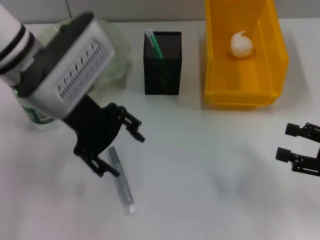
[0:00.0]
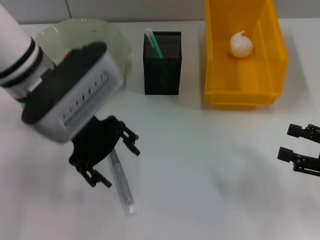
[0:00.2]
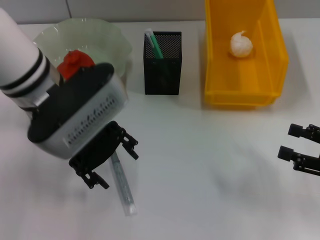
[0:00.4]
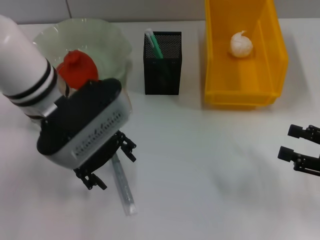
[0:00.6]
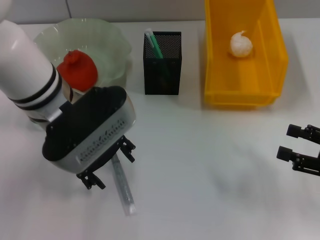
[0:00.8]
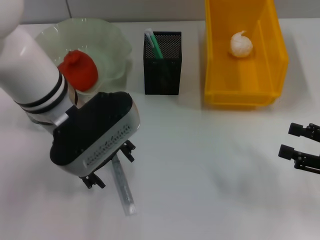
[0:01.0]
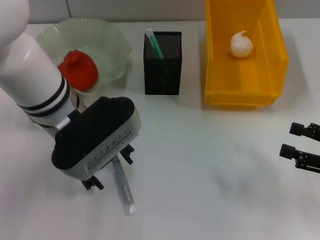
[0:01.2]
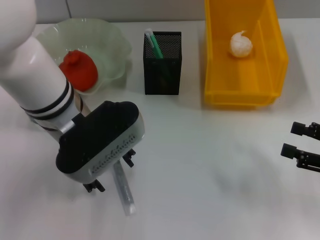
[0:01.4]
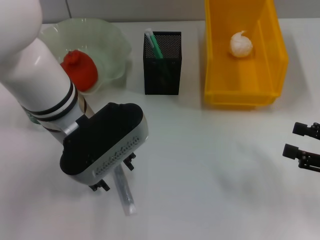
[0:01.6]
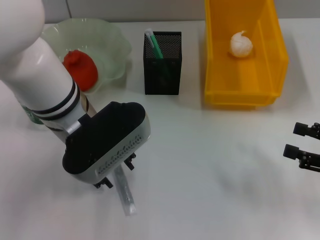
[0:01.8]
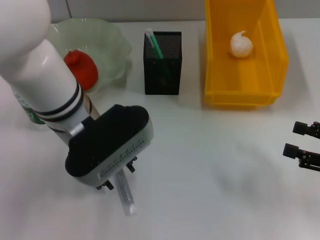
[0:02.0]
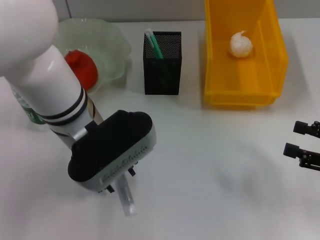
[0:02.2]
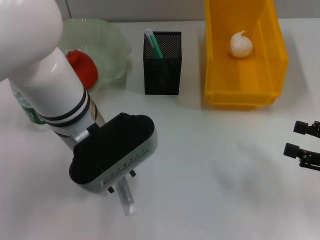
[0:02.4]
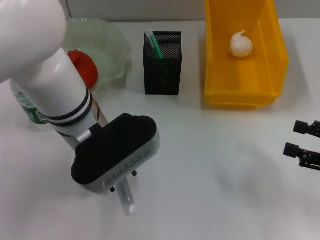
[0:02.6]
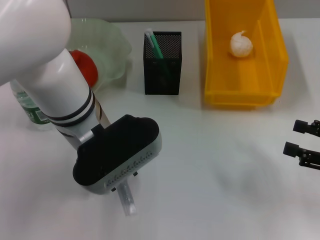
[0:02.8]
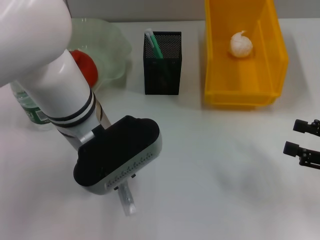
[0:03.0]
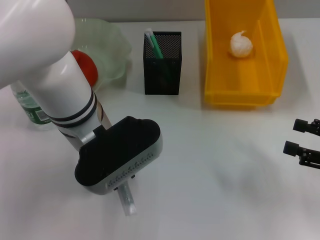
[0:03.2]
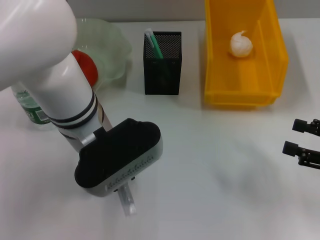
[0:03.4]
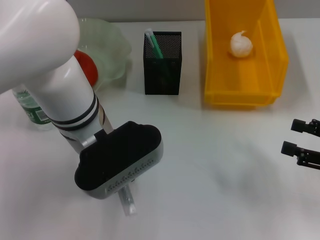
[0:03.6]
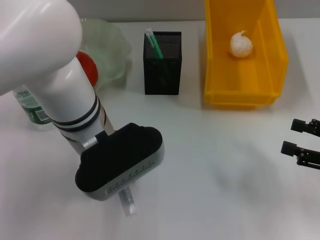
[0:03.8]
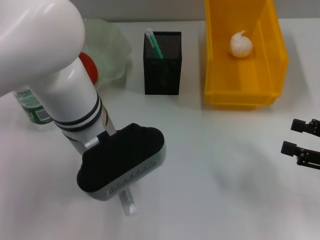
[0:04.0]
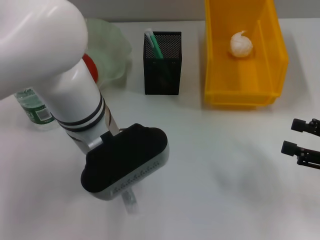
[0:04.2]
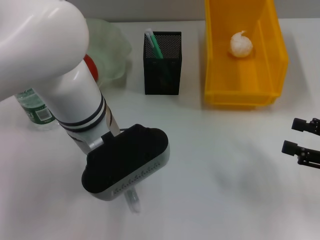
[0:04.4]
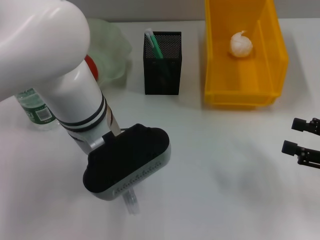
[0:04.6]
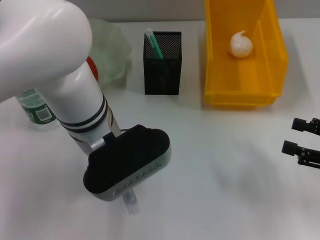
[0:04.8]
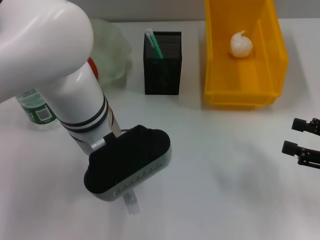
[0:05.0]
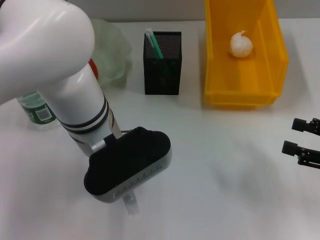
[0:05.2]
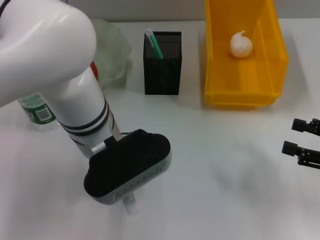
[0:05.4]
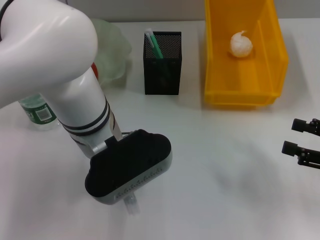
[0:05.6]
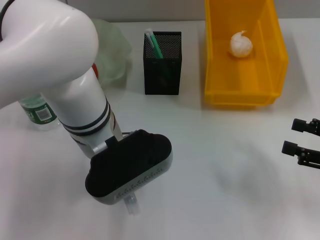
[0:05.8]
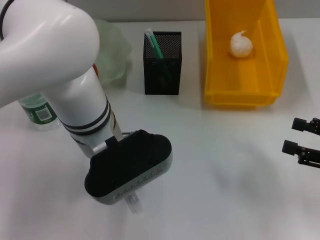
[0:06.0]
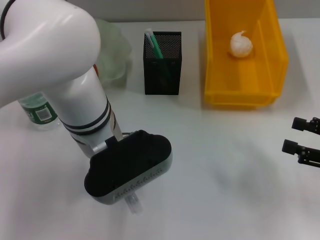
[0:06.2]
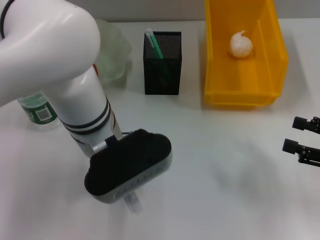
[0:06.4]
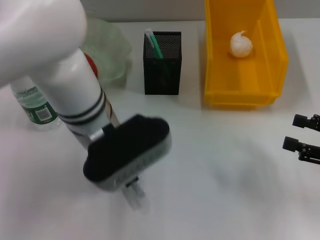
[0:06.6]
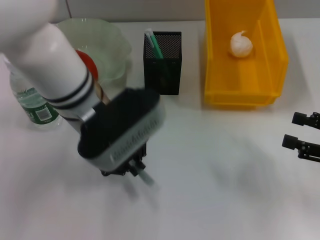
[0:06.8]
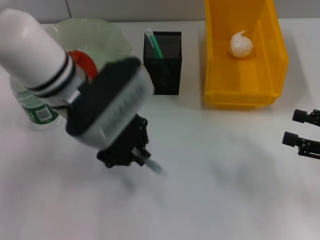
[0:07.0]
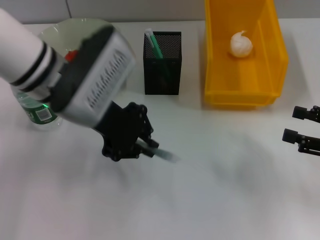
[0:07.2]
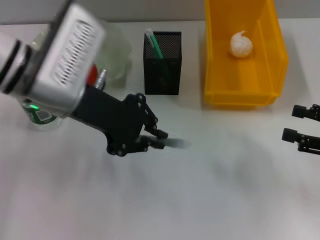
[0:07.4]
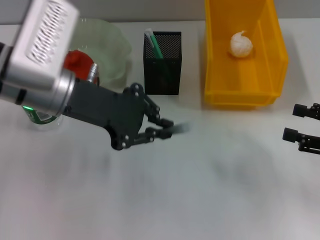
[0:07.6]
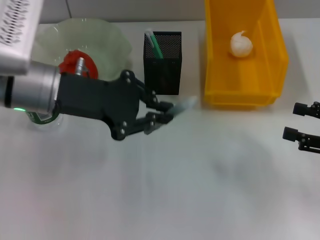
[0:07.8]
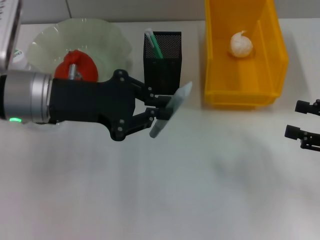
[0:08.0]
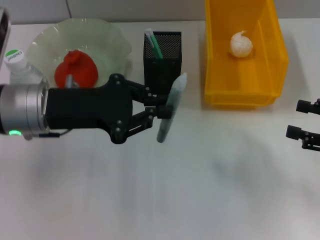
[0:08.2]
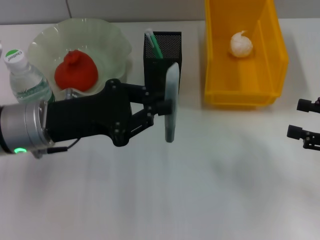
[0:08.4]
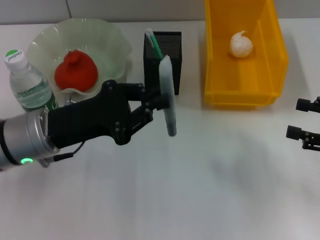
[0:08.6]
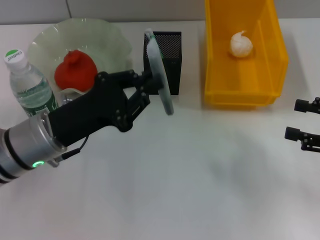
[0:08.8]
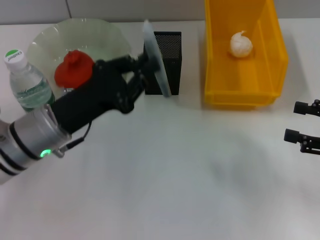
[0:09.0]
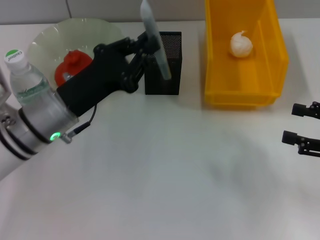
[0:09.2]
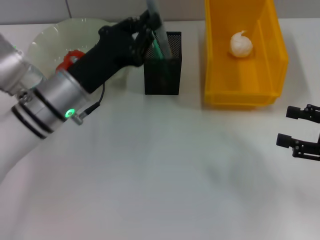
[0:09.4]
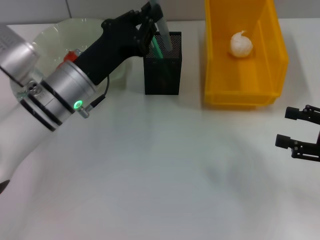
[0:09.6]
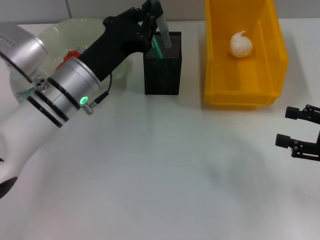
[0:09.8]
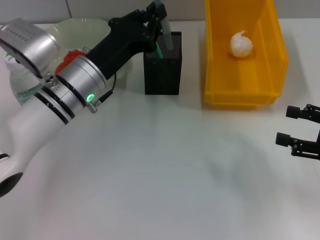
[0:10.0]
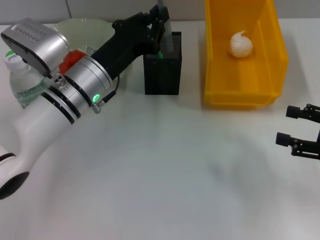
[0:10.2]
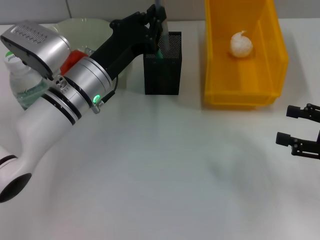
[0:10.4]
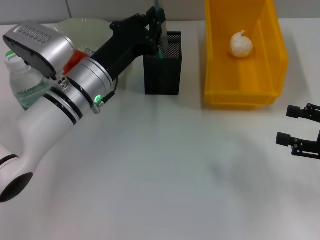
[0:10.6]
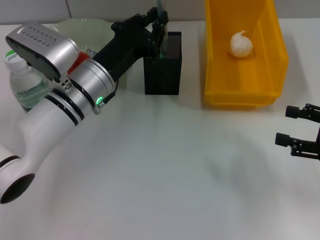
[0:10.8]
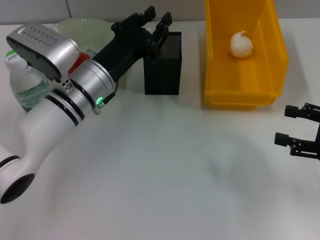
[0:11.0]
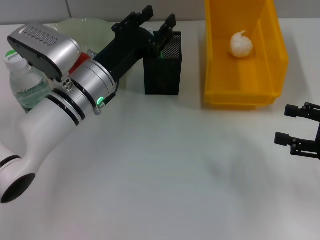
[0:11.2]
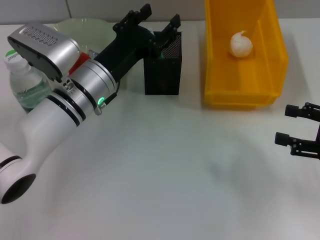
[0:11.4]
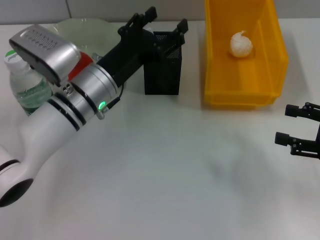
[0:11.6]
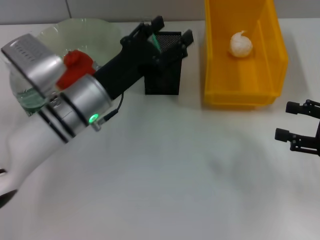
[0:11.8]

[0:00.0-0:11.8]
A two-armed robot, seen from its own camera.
Step, 0:00.0 to 0:06.0: Grab the gray glue with the left hand.
Step, 0:06.2 to 0:11.4: Place the gray glue into the pen holder with the left hand.
0:00.0 to 0:01.4: The left gripper ends up approximately 5 cm from where it was.
0:01.4 to 0:03.0: The left gripper closes its fingers.
0:03.0 to 0:04.4: Neither gripper changes place.
0:04.4 to 0:06.0: The two grippers keep their place.
0:06.0 to 0:07.4: The left gripper shifts approximately 5 cm to the left.
0:07.4 to 0:08.8: The left gripper is displaced downward and backward by roughly 10 cm.
0:08.8 to 0:10.4: The left gripper goes roughly 10 cm forward and to the right.
0:10.4 to 0:11.8: The left gripper opens up.

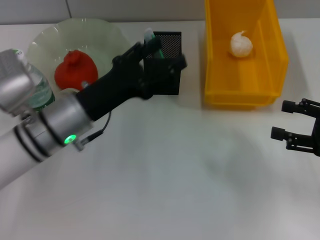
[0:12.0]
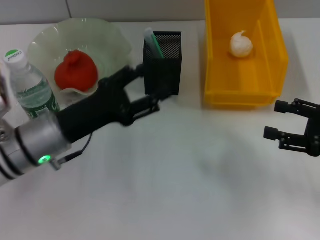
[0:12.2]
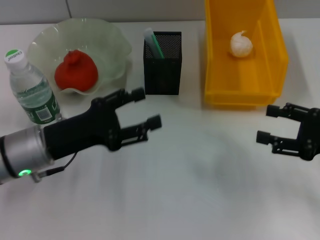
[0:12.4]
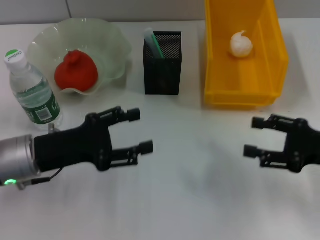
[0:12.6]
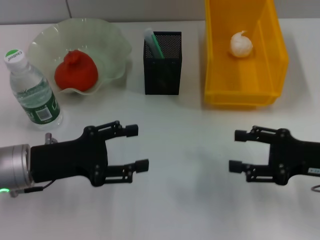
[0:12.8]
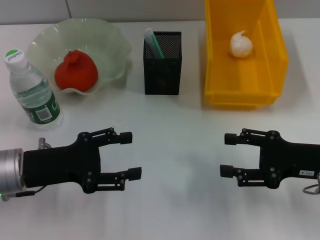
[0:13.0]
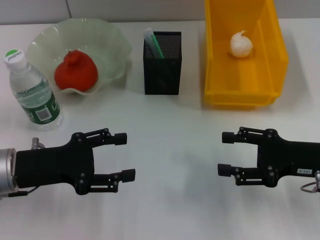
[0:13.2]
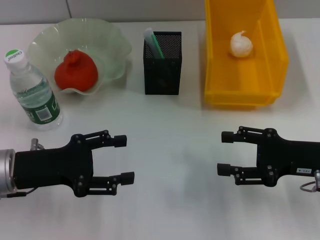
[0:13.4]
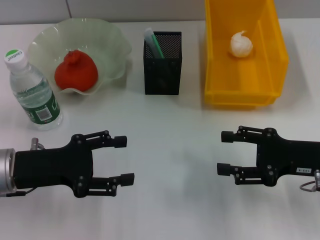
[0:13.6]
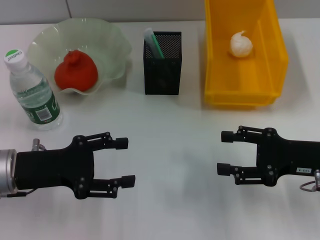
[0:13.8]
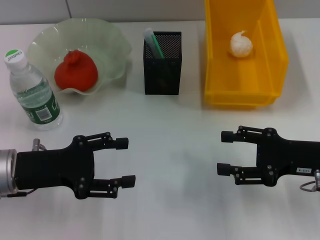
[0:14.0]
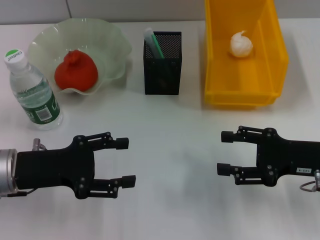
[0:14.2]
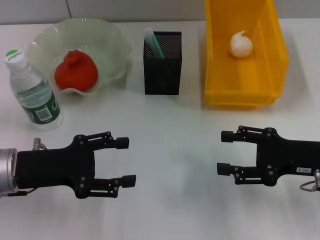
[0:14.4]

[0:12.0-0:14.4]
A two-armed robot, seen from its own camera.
0:12.0 to 0:13.2: The left gripper heads to the left and backward, covering approximately 15 cm; the right gripper heads to the left, covering roughly 5 cm.
0:13.2 to 0:14.4: Both grippers stay about where they are.

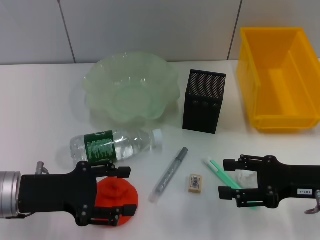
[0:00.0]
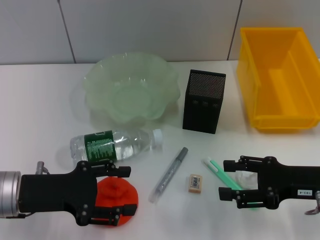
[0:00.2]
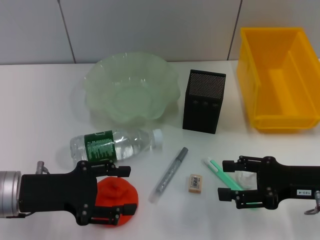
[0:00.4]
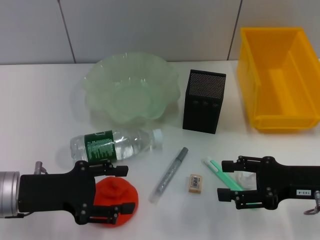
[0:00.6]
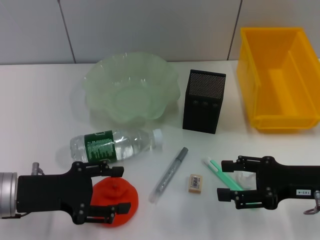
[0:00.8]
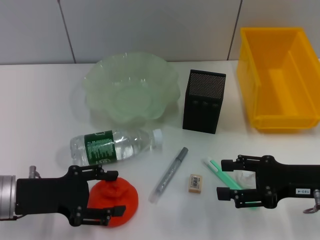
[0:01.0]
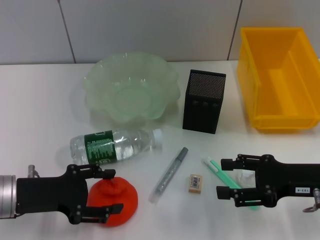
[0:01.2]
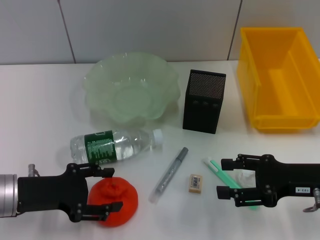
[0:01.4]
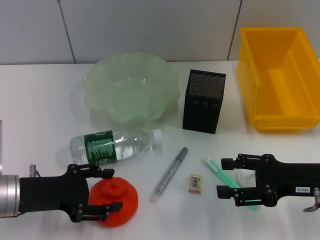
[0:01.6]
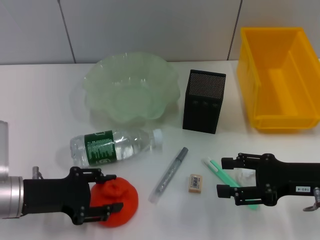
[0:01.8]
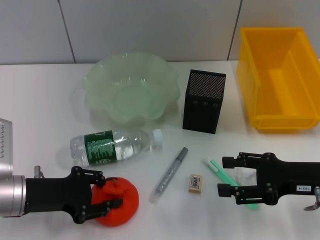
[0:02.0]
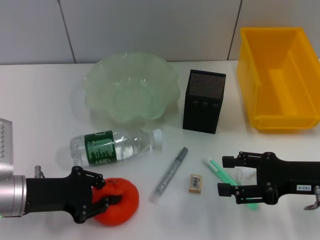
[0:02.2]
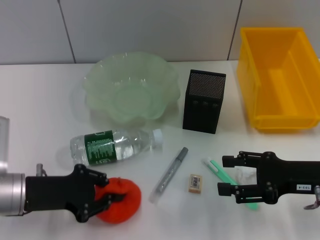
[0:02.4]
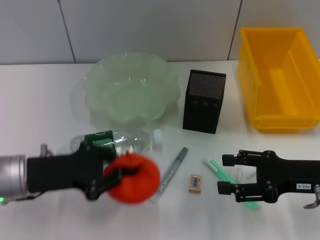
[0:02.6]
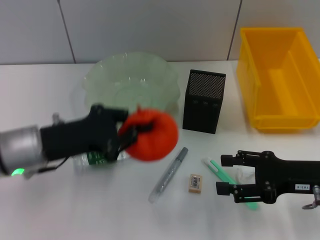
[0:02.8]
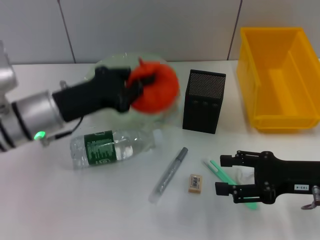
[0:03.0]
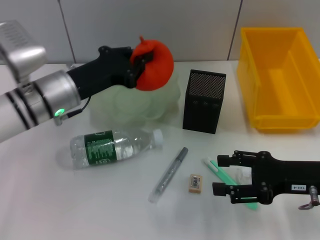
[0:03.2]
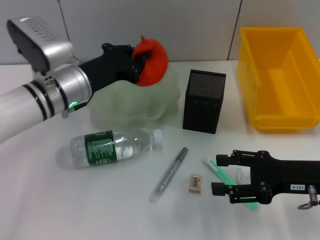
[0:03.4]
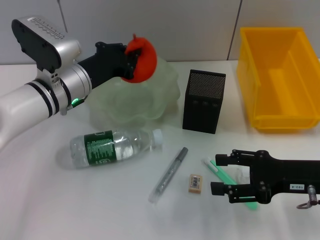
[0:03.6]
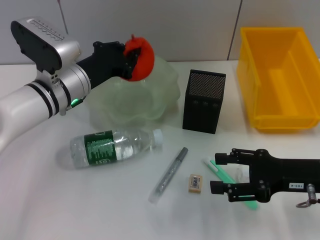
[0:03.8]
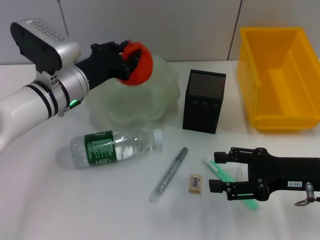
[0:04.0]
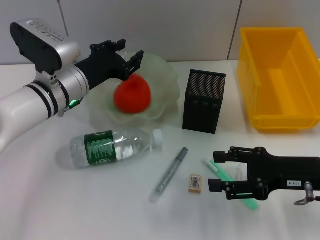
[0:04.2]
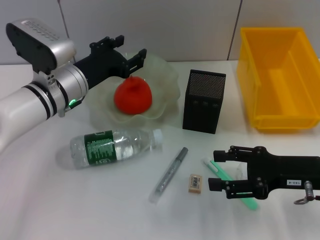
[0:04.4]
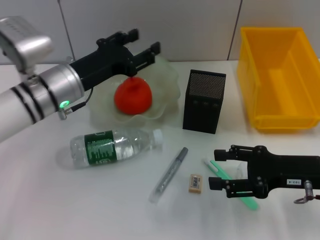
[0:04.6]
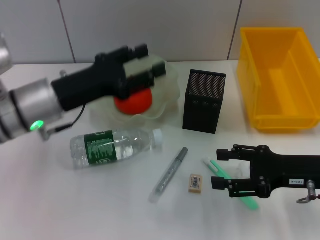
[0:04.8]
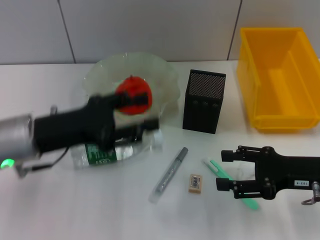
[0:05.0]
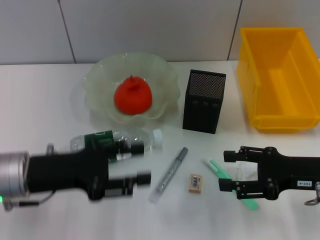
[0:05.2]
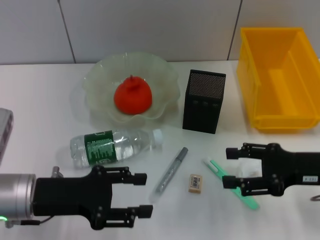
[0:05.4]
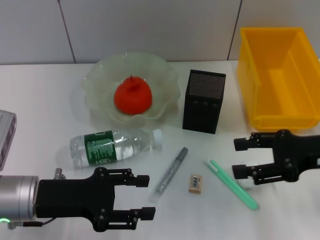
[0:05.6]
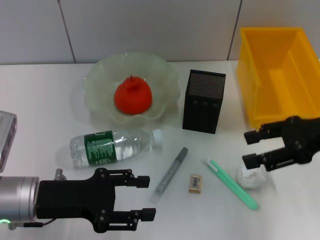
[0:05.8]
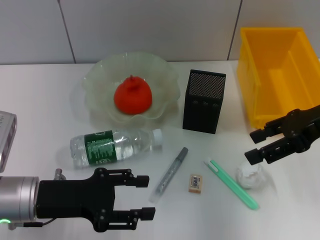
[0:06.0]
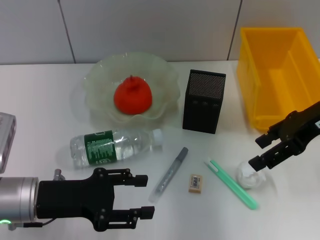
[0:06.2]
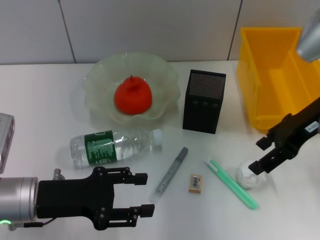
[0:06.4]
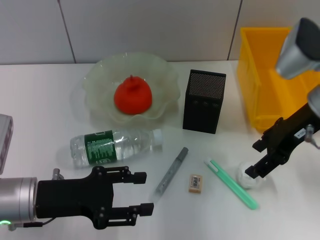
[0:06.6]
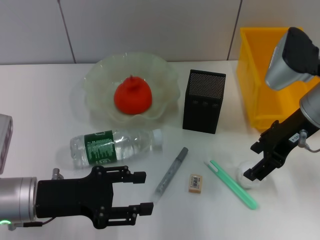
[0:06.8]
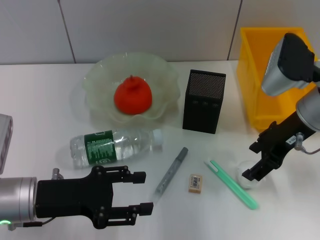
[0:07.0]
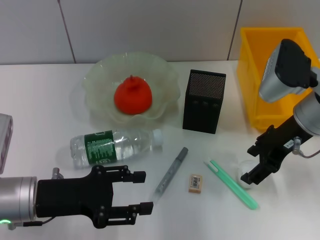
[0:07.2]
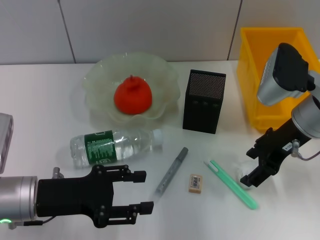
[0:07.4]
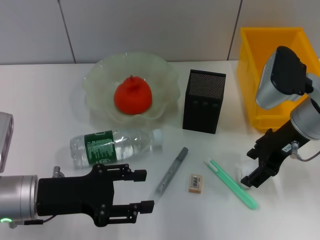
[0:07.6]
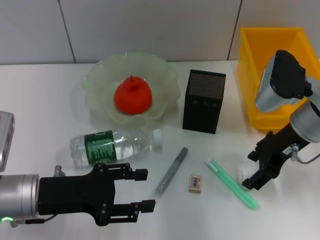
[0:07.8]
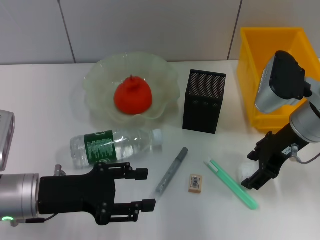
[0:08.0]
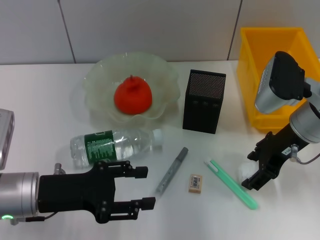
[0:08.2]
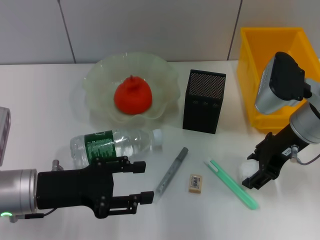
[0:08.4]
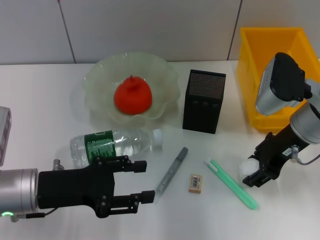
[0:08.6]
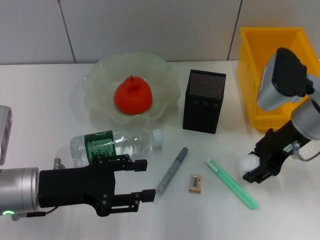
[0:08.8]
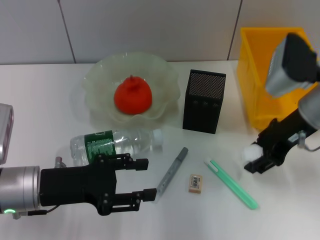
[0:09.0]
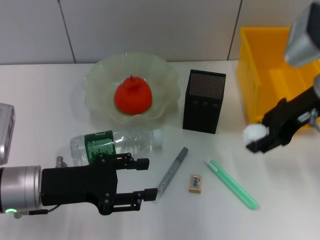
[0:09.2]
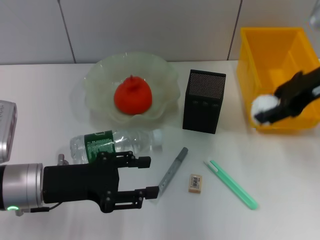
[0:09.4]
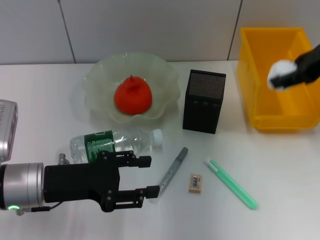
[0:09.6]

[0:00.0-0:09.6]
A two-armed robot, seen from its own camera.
Step, 0:00.0 to 0:02.0: Grab the orange with the left hand.
Step, 0:02.2 to 0:04.6: Place the orange into the fruit bowl with the left hand.
Step, 0:04.8 to 0:08.4: Grab the paper ball with the right hand.
0:00.0 to 0:01.6: The grippers make only small movements.
0:01.6 to 0:03.2: The left gripper shifts about 15 cm forward, to the right and upward, and closes up.
0:03.2 to 0:04.8: The left gripper opens up.
0:04.8 to 0:06.4: The left gripper heads backward and downward, covering about 10 cm, while the right gripper travels upward and forward by some 15 cm.
0:06.4 to 0:08.0: The right gripper travels downward by about 5 cm.
0:08.0 to 0:09.6: The right gripper moves upward and to the right, about 15 cm.
